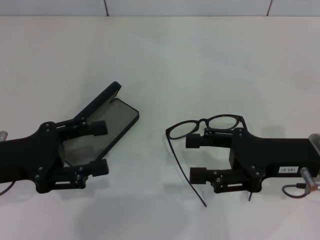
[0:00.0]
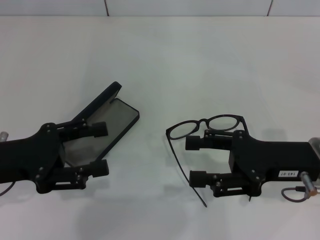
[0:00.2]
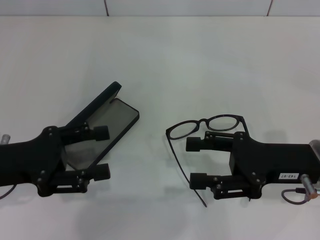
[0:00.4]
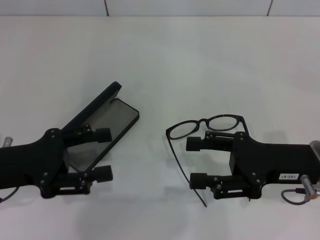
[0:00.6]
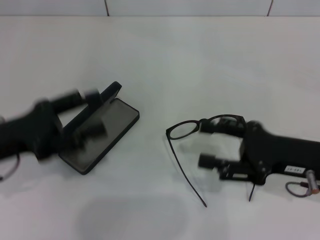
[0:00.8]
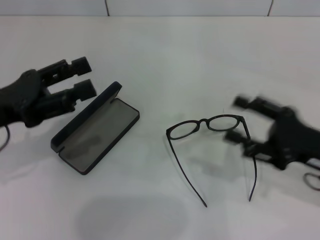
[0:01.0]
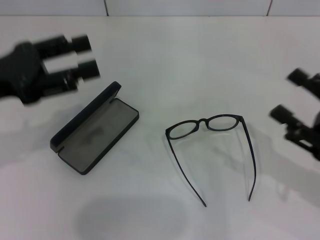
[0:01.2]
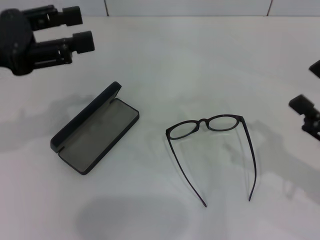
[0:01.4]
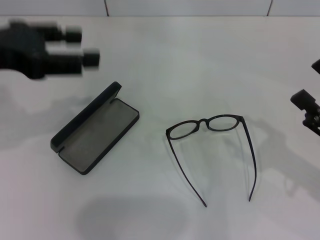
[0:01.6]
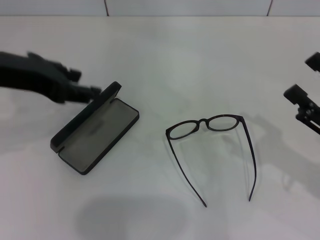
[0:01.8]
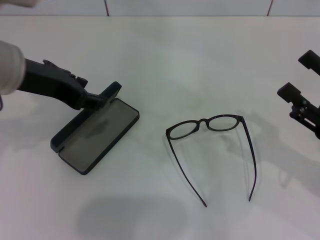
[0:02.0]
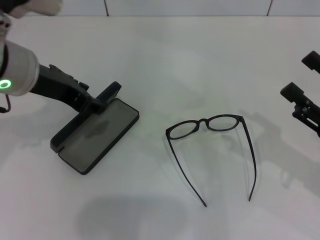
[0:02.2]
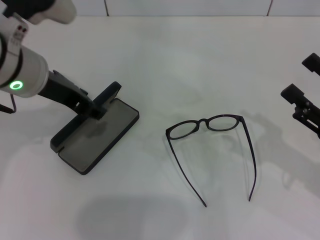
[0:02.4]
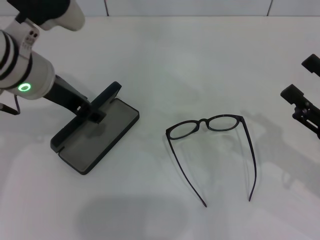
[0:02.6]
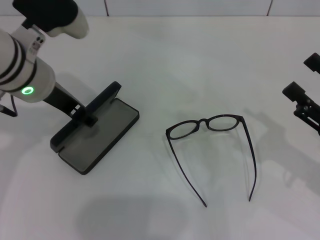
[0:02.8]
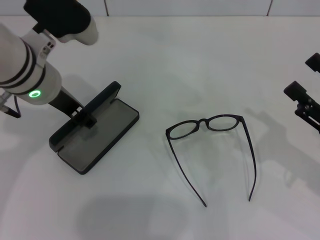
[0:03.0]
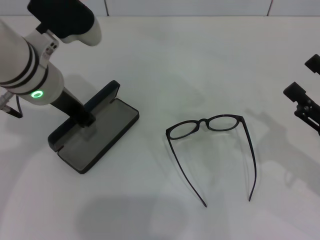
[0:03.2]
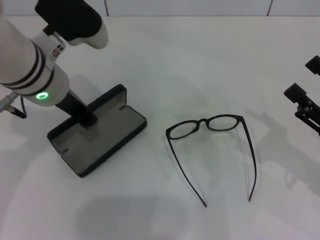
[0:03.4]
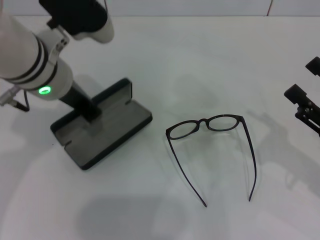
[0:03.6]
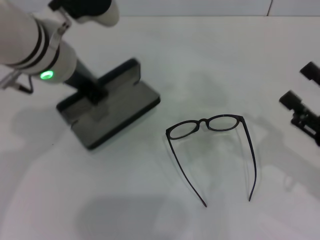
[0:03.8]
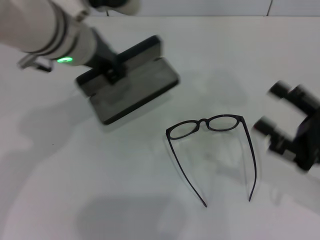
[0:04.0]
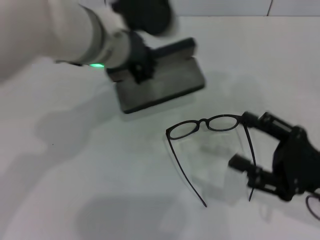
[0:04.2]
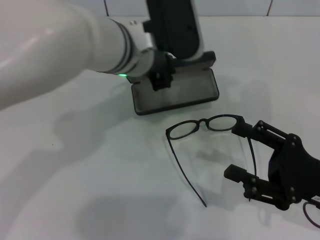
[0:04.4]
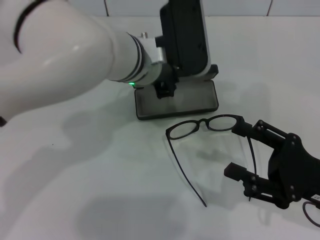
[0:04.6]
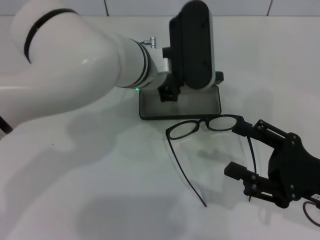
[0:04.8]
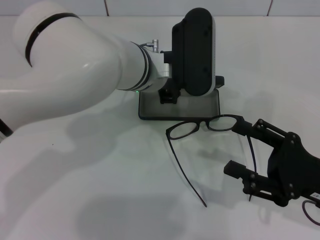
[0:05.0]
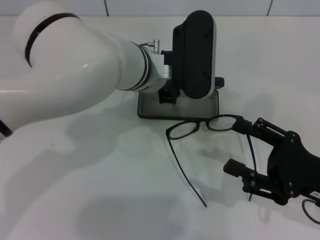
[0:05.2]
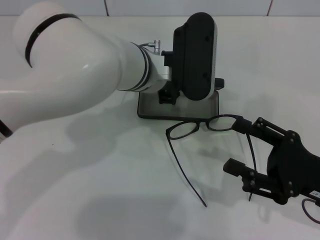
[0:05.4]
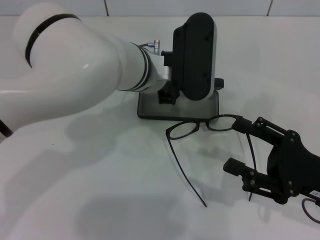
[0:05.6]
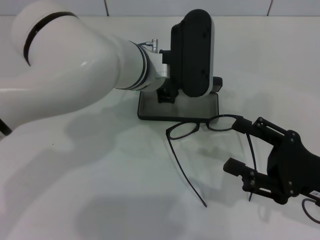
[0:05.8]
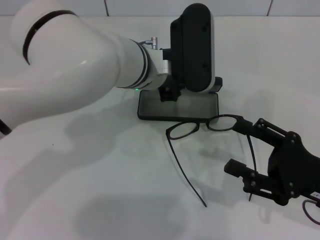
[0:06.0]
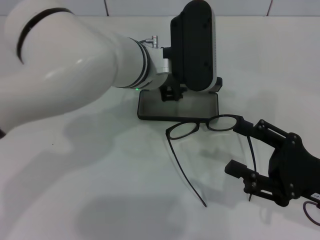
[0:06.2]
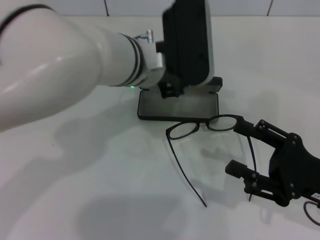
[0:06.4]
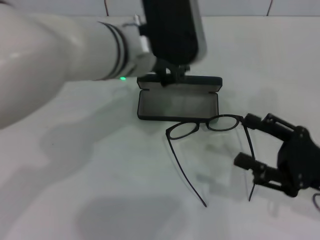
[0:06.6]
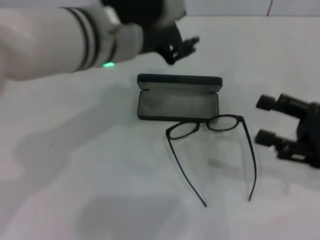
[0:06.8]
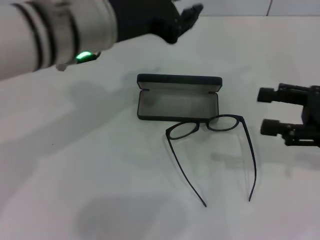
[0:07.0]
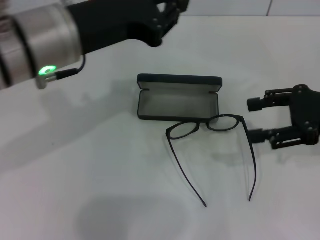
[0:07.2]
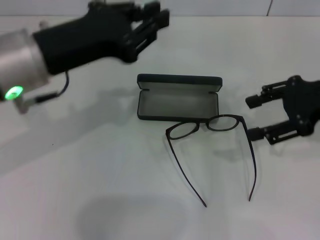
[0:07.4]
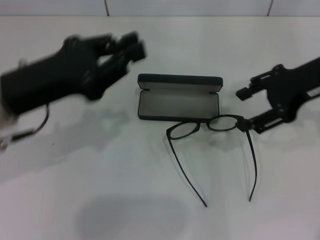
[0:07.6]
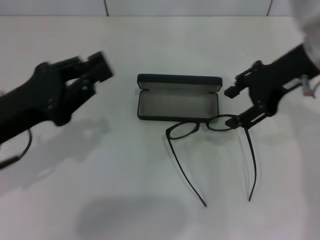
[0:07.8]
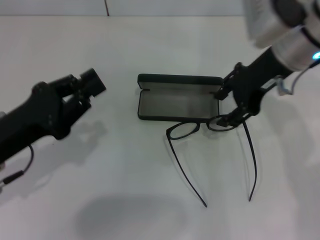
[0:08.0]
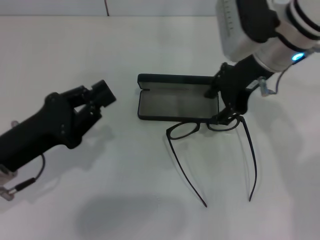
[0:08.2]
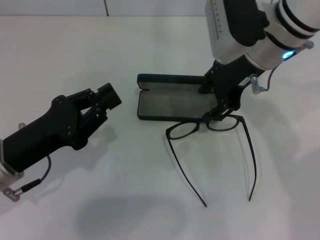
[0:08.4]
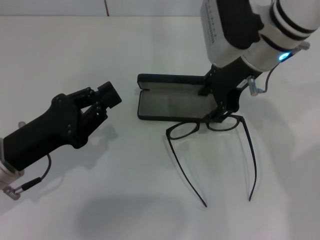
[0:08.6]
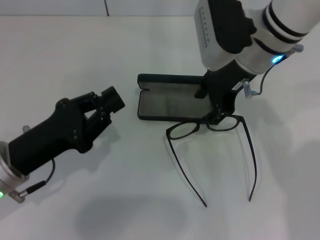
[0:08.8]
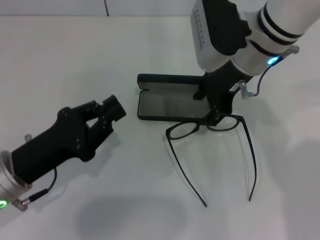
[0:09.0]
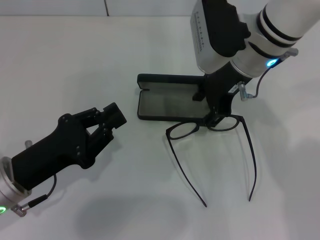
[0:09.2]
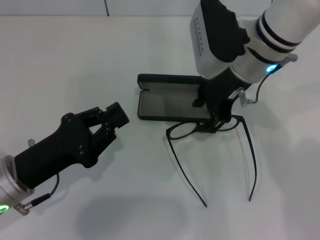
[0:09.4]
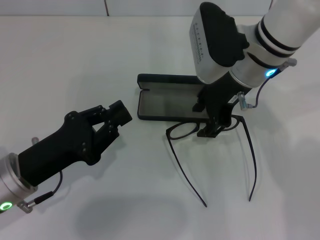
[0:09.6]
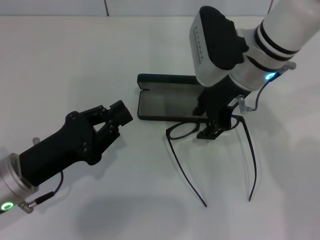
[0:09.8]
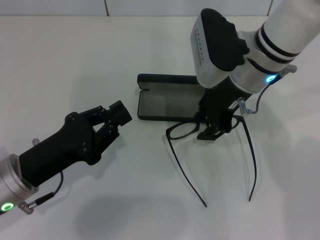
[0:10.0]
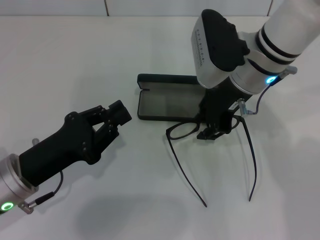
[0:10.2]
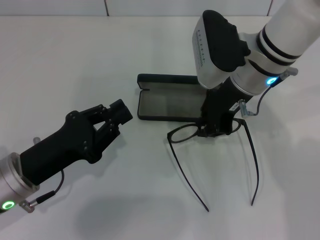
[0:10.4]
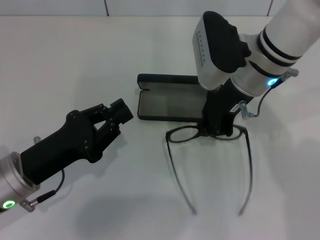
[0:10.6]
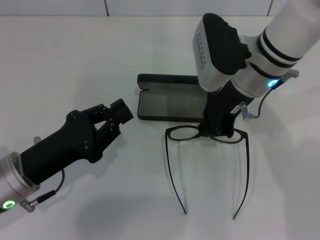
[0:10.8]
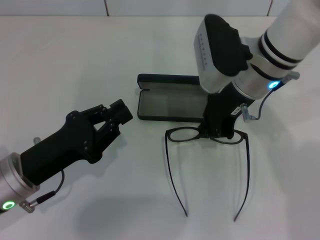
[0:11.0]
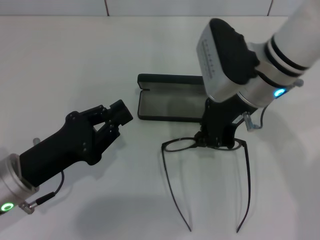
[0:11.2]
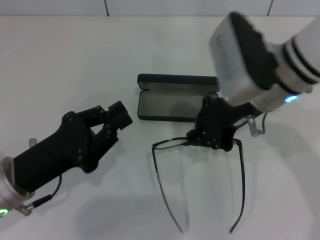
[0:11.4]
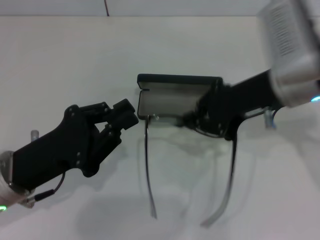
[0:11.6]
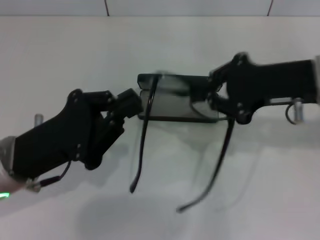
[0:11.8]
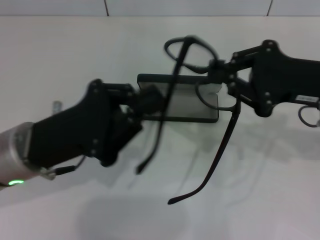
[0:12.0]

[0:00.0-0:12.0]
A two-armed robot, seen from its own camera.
Step, 0.0 to 2.8 s: Grab the glasses case with your left hand.
Step, 3.0 to 5.8 s: Place the glasses case in the center of the table with your left hand.
Step, 6.0 to 10.6 s: Grab the eyeglass frame with your right hand.
0.0 to 1.6 s: The right gripper heads to the right, covering approximately 10 cm; the left gripper is displaced upward by about 15 cm.
1.6 to 3.0 s: The left gripper shifts approximately 15 cm to the right, downward and forward.
3.0 to 4.4 s: The right gripper ends up approximately 5 cm from where it was; the left gripper goes approximately 10 cm to the right, and closes.
6.0 to 7.6 s: The left gripper travels to the left and backward by some 20 cm, and opens, then closes once more. Meanwhile the right gripper goes some 20 cm upward and forward.
7.6 to 9.0 s: The right gripper is displaced to the left by some 15 cm, while the left gripper shifts about 10 cm downward.
9.0 to 10.4 s: The right gripper closes its fingers.
10.4 to 12.0 s: The right gripper shifts roughly 15 cm to the right and backward, and closes up. Meanwhile the left gripper travels upward by approximately 5 cm.

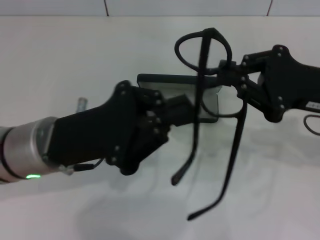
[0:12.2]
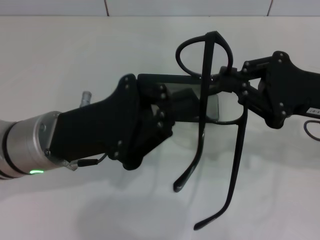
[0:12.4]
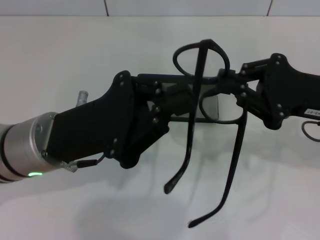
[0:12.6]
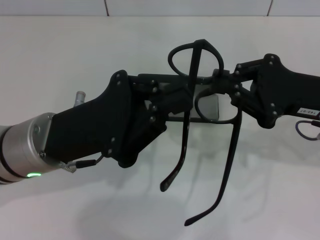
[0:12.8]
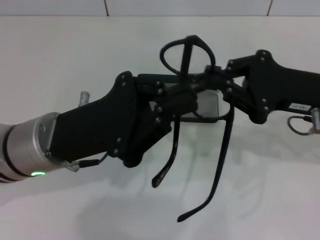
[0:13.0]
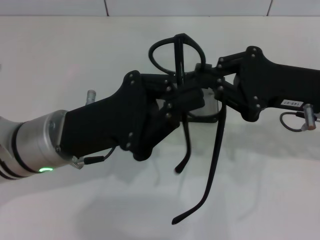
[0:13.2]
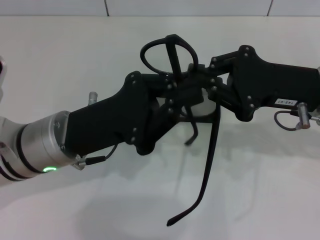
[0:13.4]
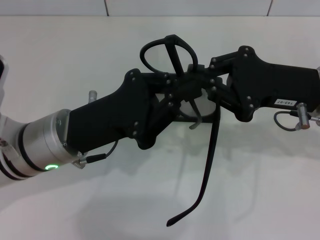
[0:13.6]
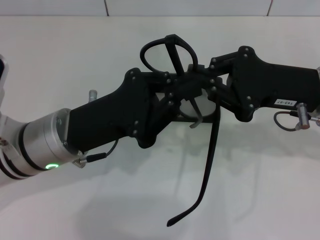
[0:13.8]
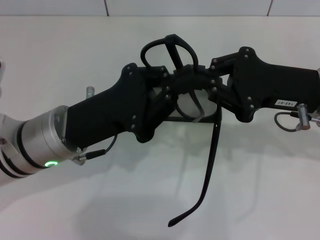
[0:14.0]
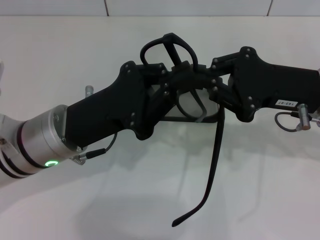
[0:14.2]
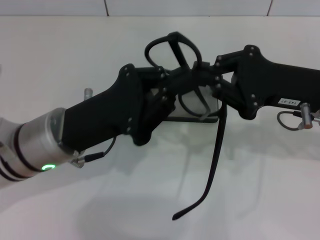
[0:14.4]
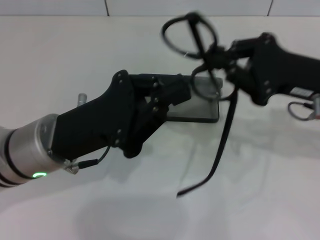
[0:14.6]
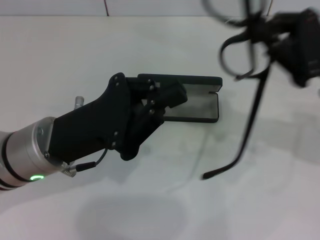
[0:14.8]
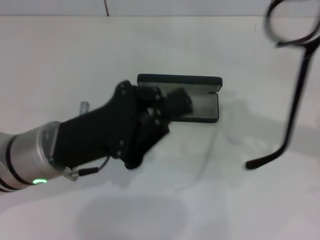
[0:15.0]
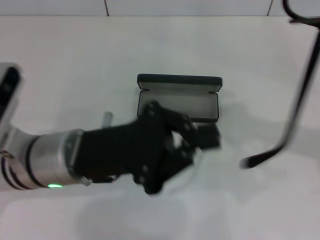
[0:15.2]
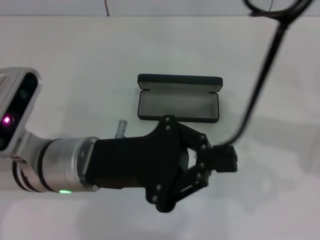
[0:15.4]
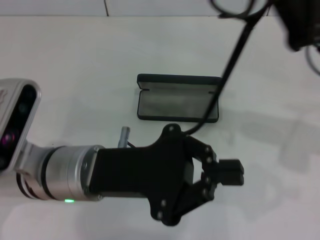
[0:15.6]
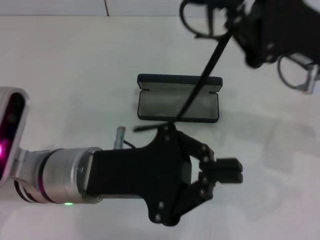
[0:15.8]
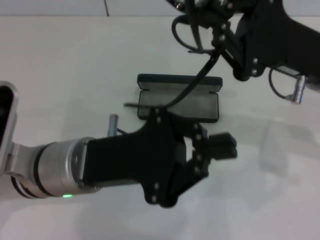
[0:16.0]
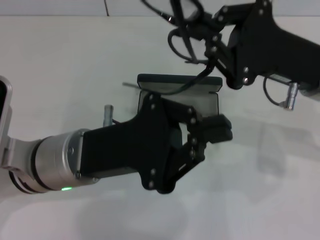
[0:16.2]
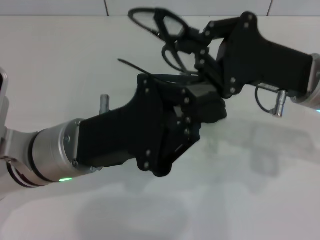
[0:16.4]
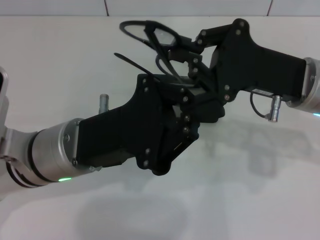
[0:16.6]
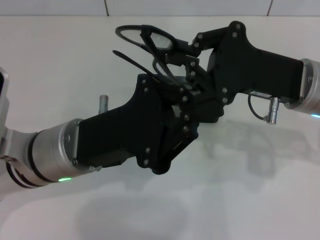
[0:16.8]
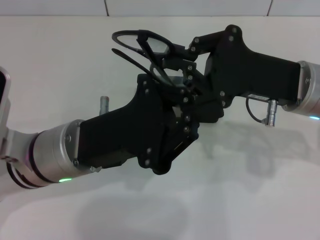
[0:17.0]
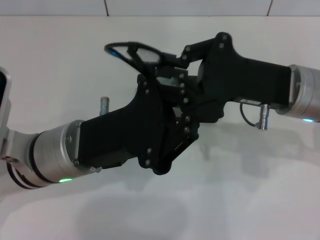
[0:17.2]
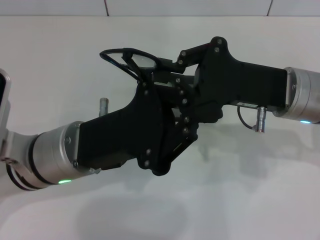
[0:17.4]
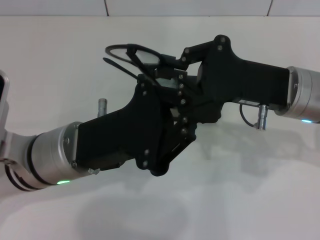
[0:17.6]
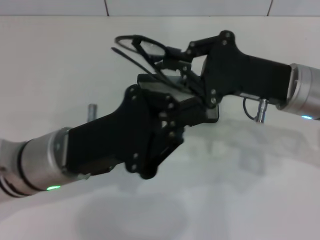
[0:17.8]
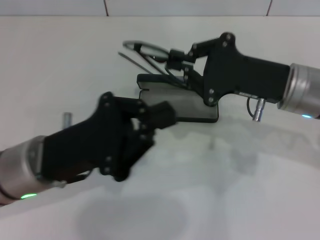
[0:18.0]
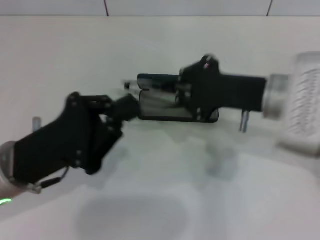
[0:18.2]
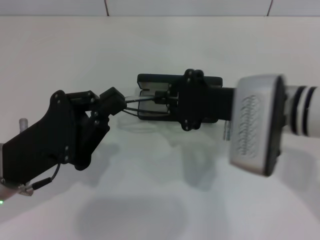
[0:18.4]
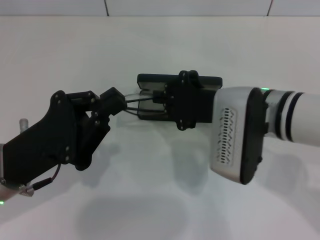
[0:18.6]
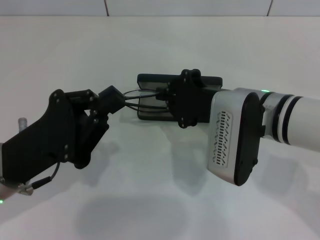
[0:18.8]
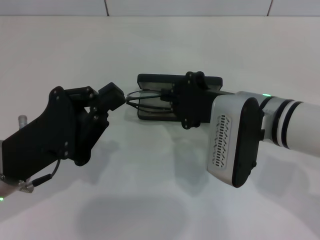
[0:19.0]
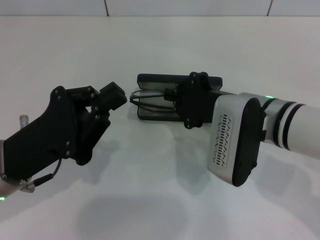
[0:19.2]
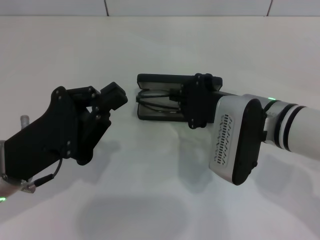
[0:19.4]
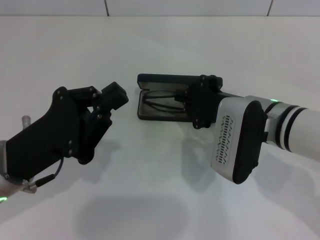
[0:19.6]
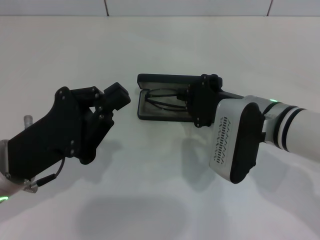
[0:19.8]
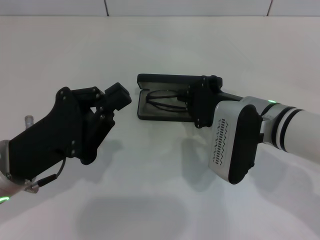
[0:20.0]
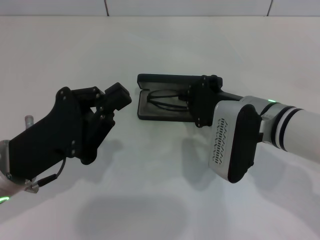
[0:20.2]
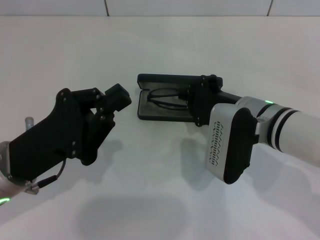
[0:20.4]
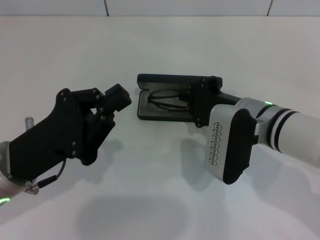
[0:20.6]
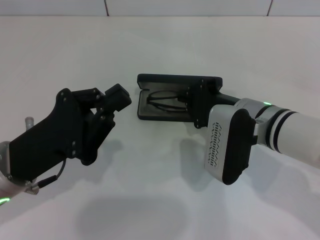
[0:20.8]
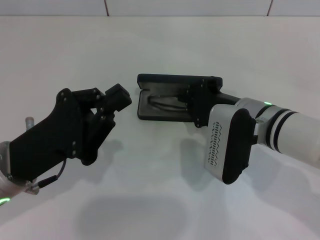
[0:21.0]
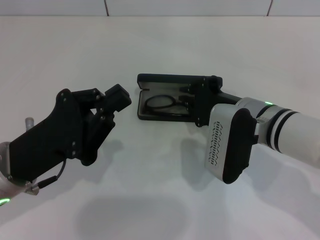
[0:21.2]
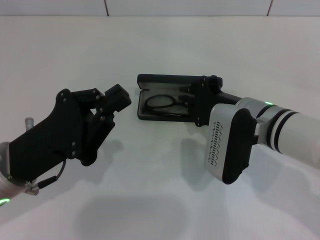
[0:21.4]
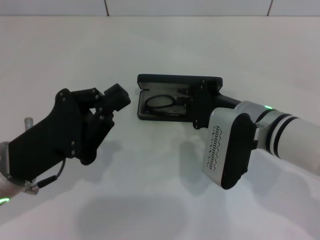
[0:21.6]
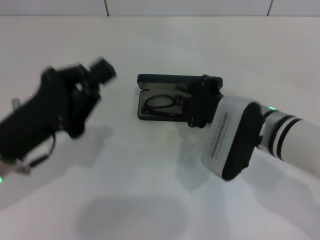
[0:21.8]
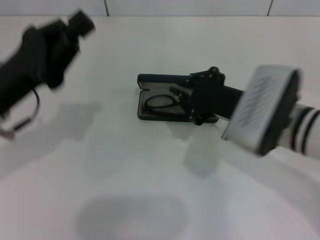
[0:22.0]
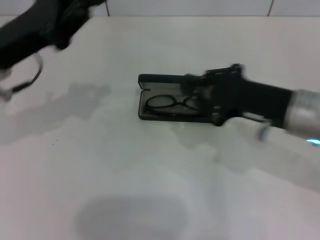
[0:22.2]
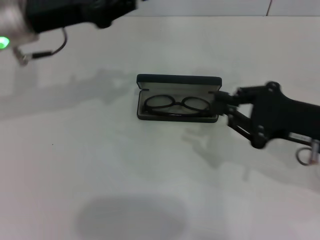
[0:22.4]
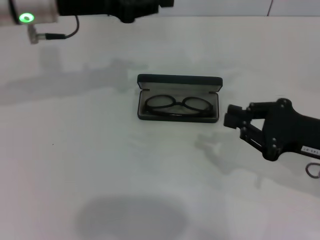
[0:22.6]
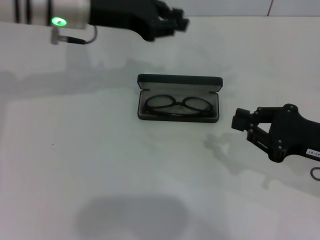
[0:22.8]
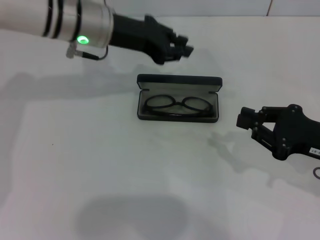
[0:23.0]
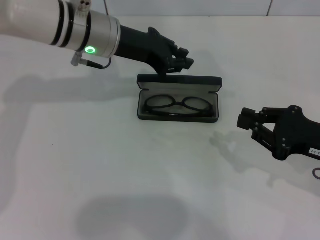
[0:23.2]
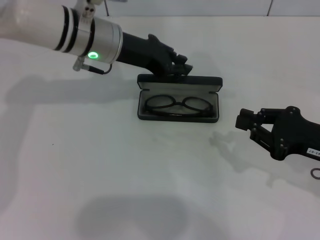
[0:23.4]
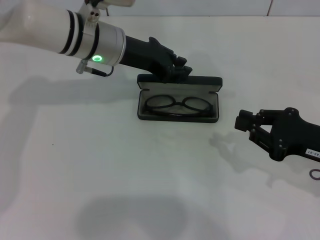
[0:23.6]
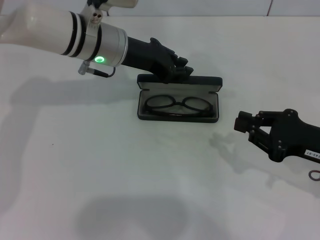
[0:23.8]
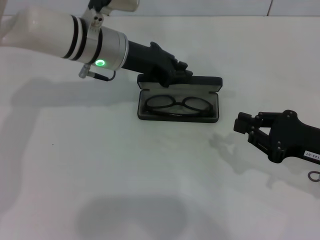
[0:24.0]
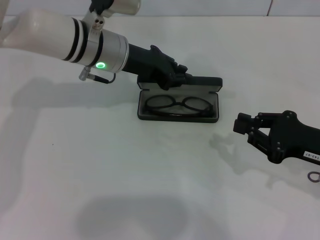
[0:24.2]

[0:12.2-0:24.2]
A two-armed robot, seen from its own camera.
Step, 12.2 to 17.4 s: Fold the frame with your left hand.
Step, 17.6 to 21.4 s: Put the glasses into the case with your right hand.
13.8 to 15.2 s: The right gripper is displaced to the right by roughly 5 cm.
15.2 to 16.6 s: The right gripper shifts approximately 10 cm to the left.
16.6 to 18.2 s: The left gripper heads to the left, covering roughly 5 cm.
18.2 to 19.8 s: The right gripper changes place by roughly 5 cm.
19.8 to 21.2 s: The grippers make only small movements.
21.2 to 22.6 s: The left gripper moves forward and upward, some 20 cm. Meanwhile the right gripper moves to the right and backward, approximately 15 cm.
22.6 to 24.2 s: The left gripper moves to the right and downward, some 10 cm.
